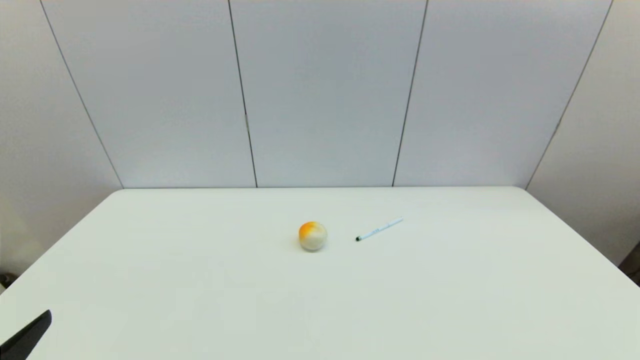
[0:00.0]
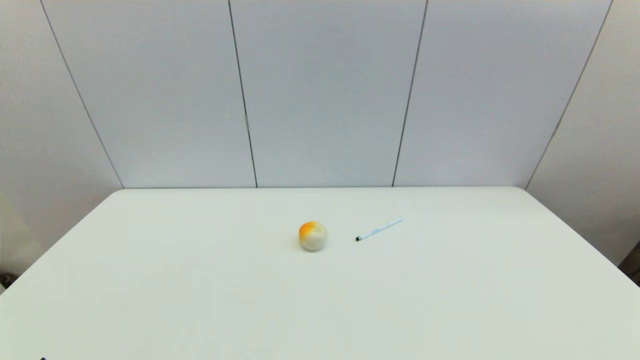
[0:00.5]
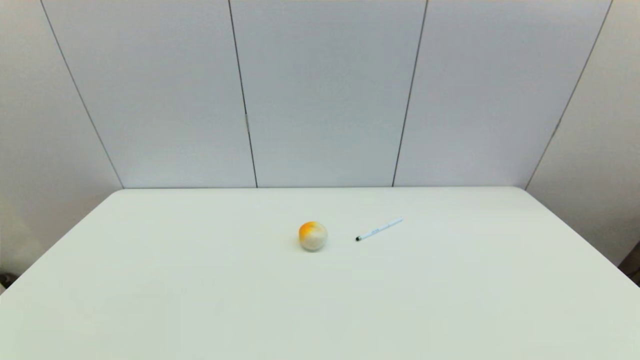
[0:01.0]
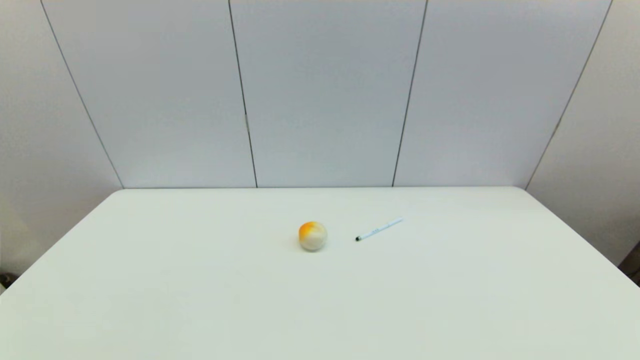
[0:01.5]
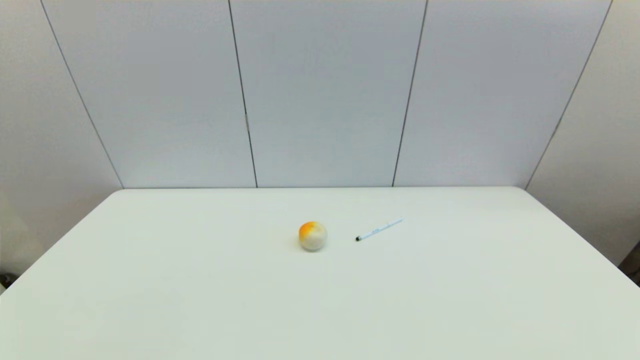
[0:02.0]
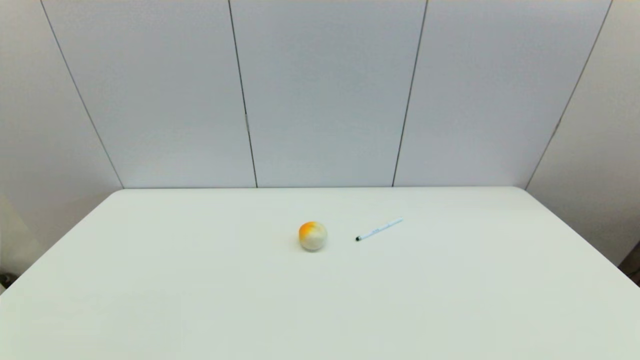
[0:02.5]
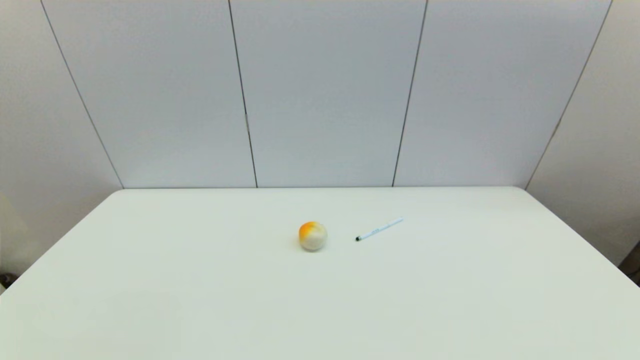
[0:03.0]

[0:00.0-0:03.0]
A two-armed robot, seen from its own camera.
Task of the whole recording: put the pen in the designated position.
0:01.5 to 0:03.0: Neither gripper changes place.
